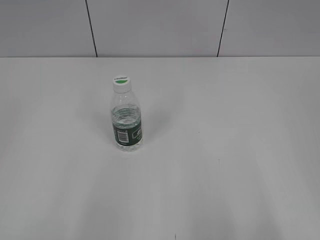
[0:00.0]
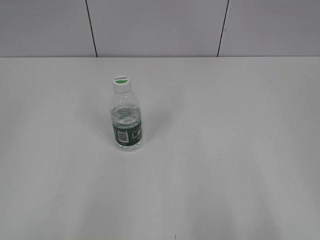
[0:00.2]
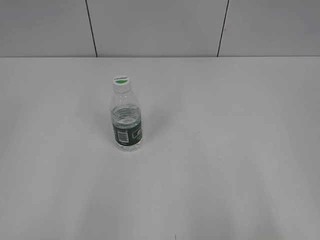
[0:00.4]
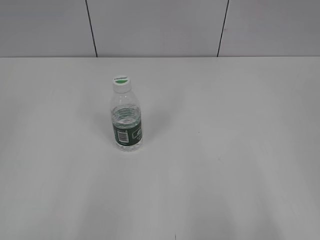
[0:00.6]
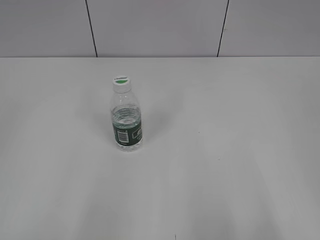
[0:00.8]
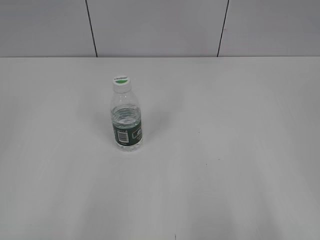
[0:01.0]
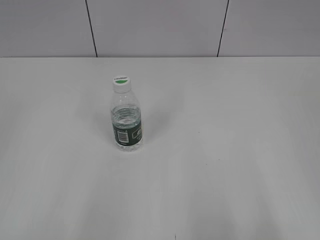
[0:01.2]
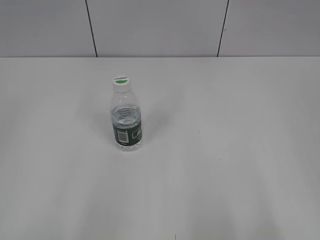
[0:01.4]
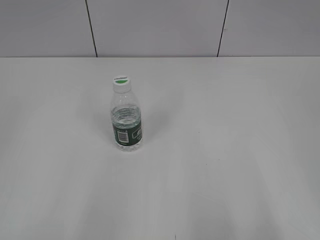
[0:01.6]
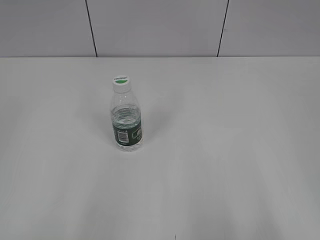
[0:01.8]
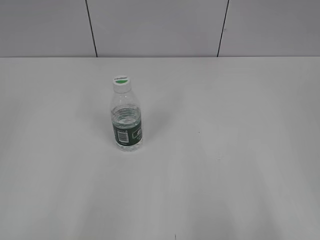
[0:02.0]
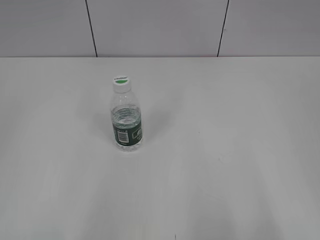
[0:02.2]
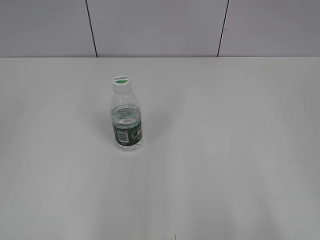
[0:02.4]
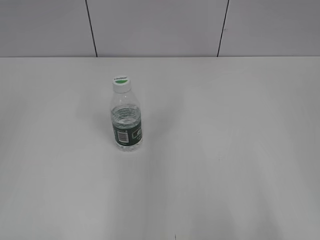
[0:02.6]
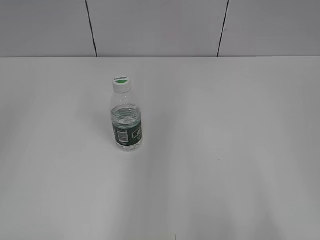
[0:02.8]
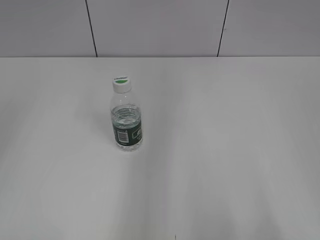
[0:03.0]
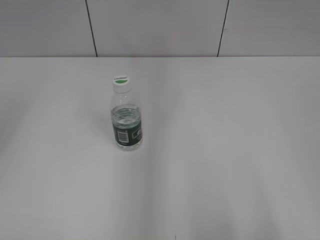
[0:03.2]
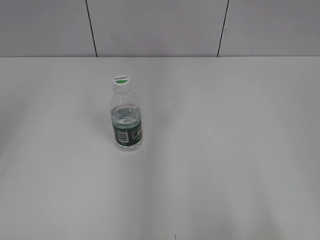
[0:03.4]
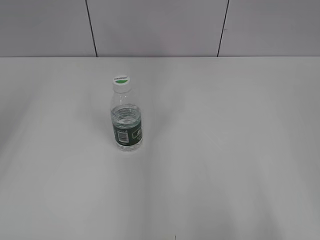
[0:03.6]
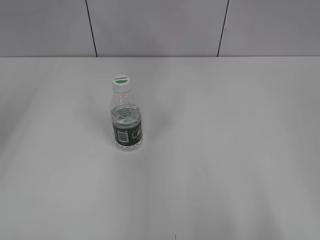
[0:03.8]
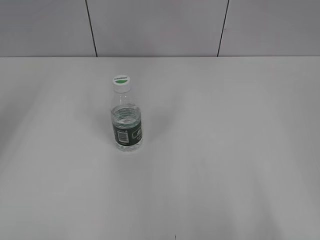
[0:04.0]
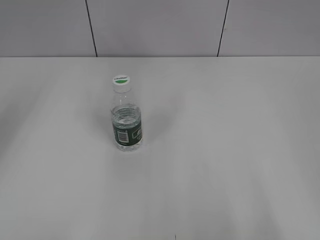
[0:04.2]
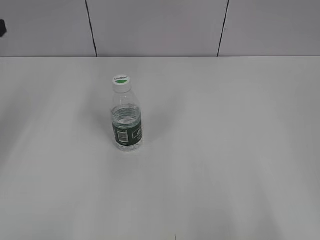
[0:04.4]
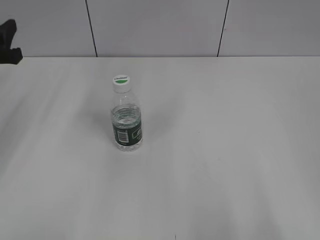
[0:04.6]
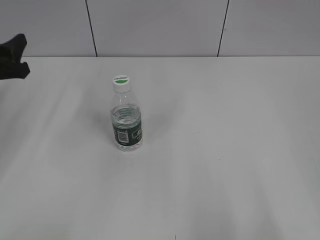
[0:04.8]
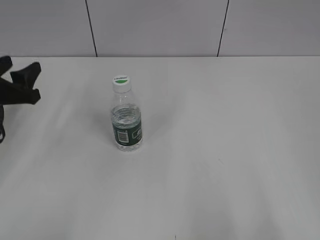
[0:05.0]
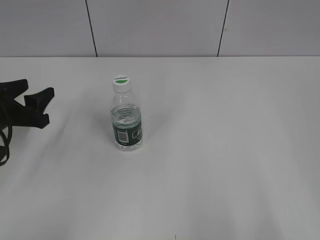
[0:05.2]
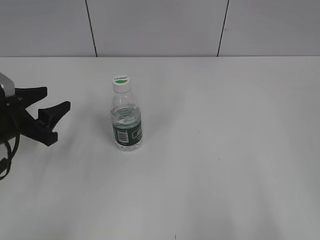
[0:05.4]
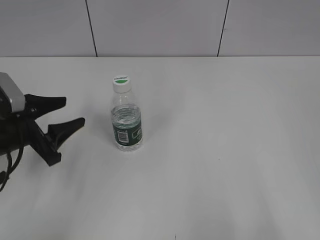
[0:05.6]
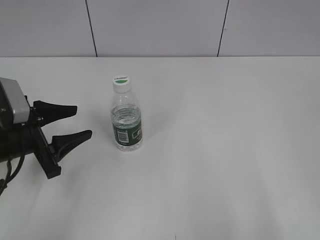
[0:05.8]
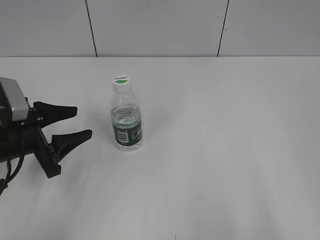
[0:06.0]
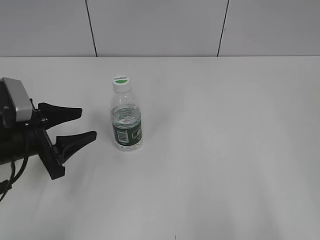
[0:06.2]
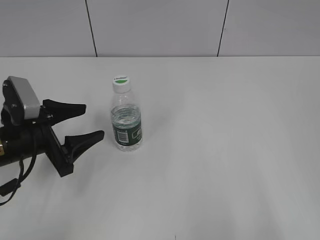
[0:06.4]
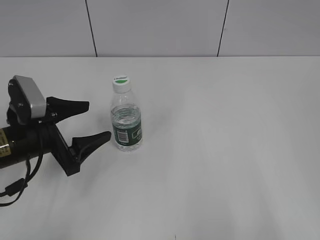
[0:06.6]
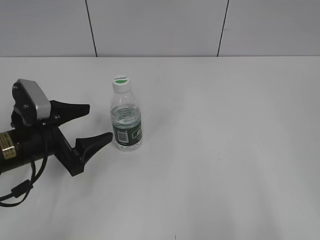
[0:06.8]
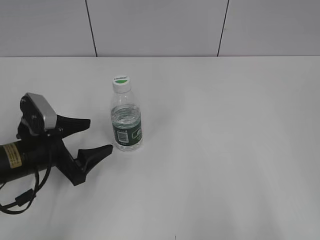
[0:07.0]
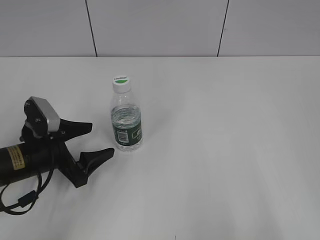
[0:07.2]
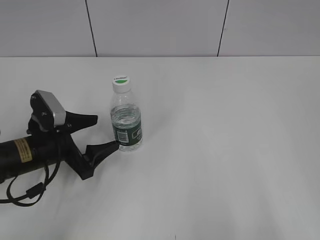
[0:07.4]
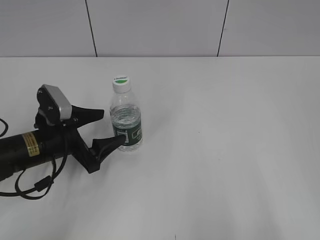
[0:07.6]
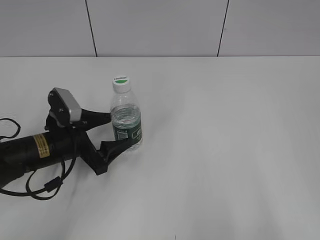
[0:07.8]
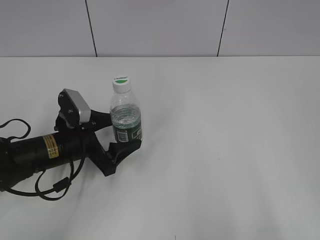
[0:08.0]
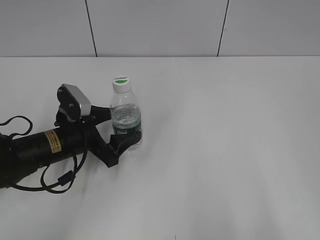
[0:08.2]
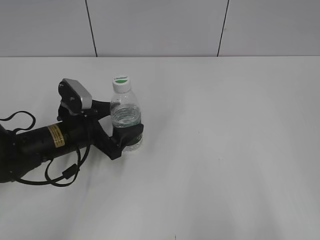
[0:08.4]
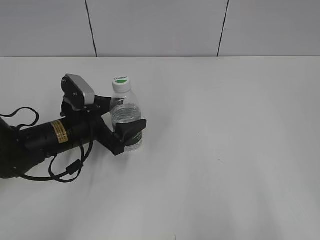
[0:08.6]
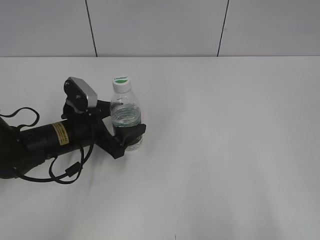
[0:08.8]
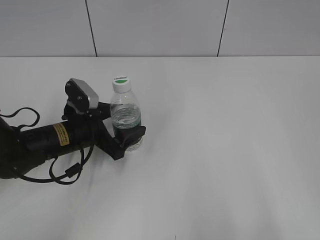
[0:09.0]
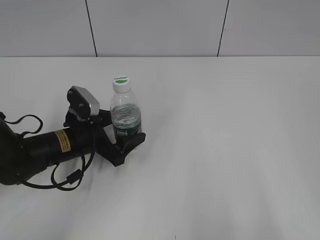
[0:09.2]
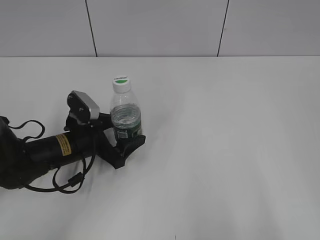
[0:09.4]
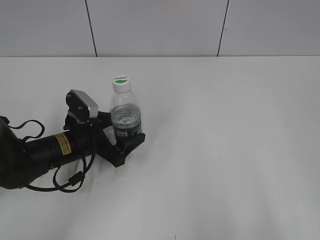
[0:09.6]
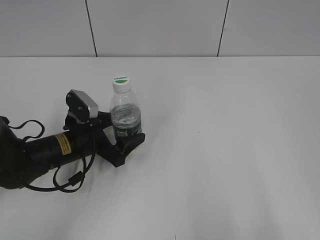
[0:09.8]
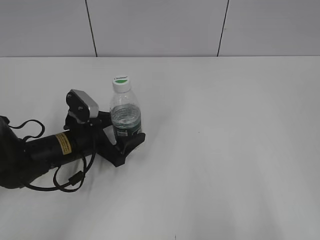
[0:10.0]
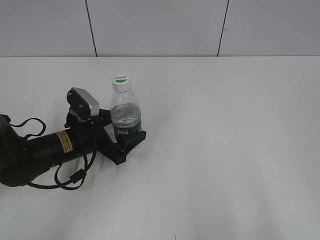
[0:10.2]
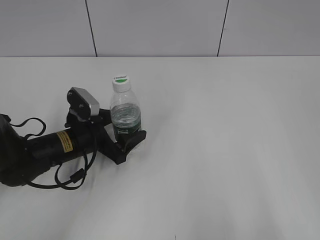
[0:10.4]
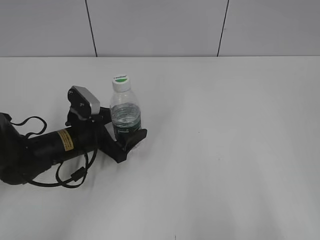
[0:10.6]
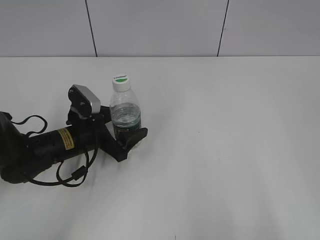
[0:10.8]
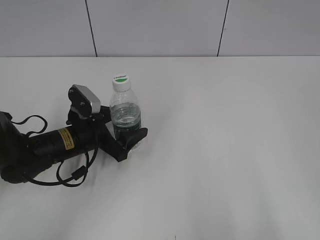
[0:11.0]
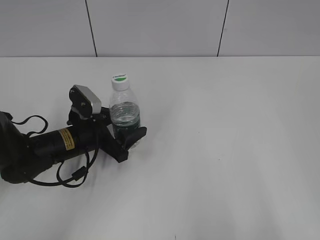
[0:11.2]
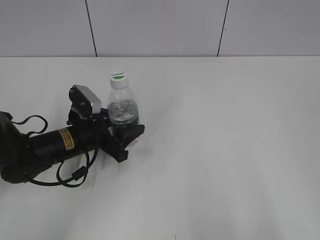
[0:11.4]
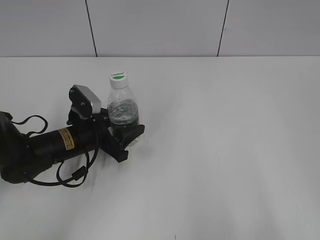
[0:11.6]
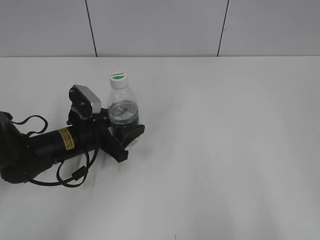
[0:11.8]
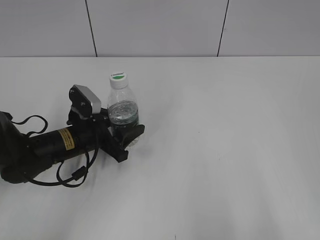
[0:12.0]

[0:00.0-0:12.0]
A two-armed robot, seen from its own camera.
Step, 0:00.0 to 0:11.6: Grasp the bottle and move it to the center of the table with the left gripper.
0:01.6 to 0:03.0: The left gripper shifts roughly 15 cm upward and forward.
0:04.4 to 0:06.0: The left gripper goes roughly 15 cm downward, to the right and backward.
0:06.0 to 0:07.6: The left gripper shifts by about 5 cm, and opens.
0:07.6 to 0:10.4: The grippers make only small movements.
0:10.4 to 0:12.0: The left gripper closes.

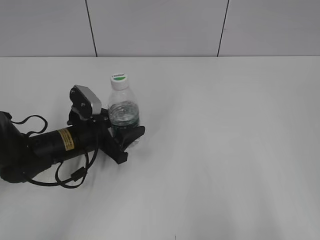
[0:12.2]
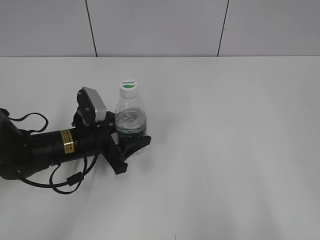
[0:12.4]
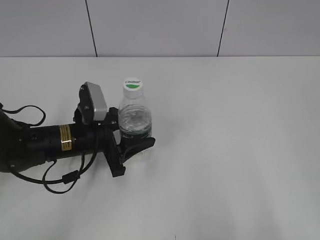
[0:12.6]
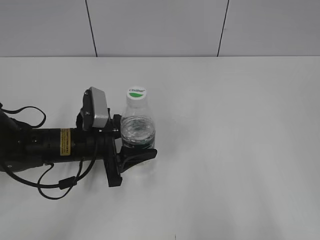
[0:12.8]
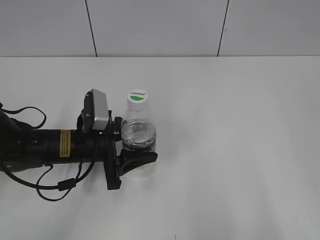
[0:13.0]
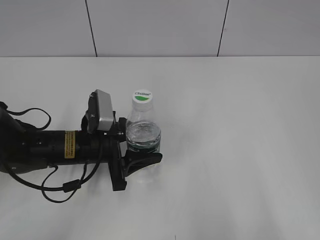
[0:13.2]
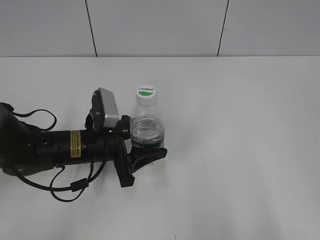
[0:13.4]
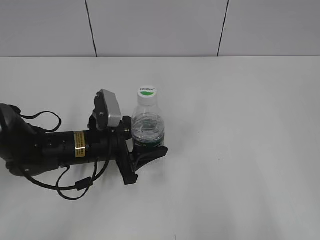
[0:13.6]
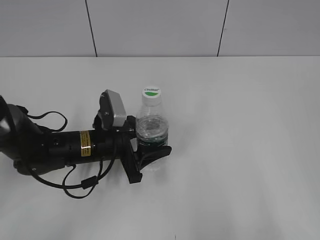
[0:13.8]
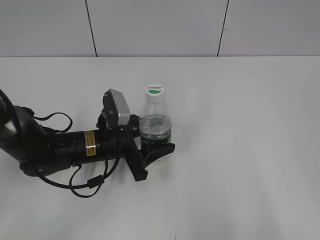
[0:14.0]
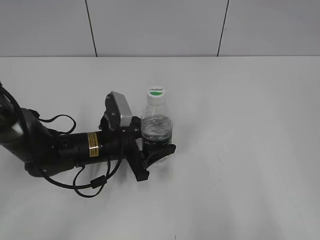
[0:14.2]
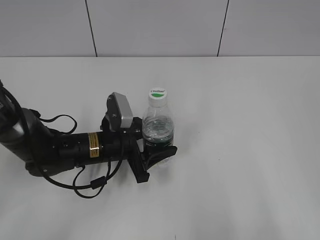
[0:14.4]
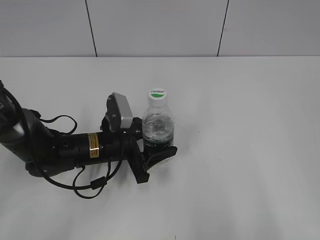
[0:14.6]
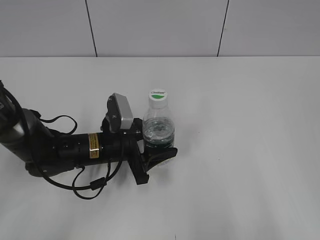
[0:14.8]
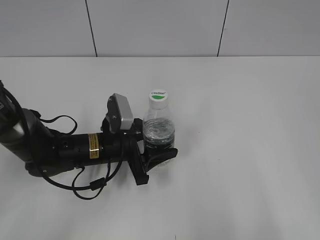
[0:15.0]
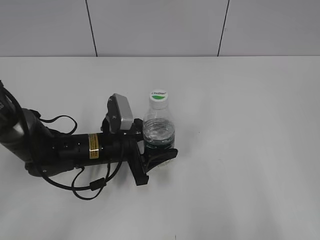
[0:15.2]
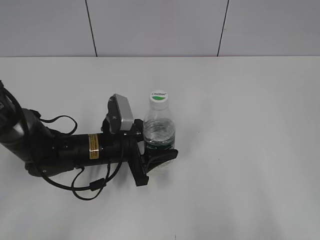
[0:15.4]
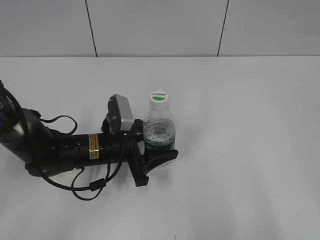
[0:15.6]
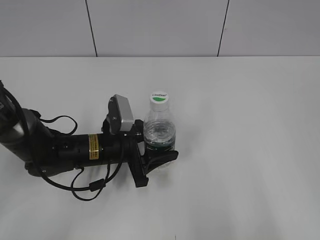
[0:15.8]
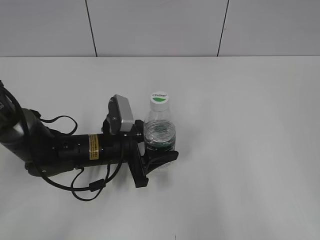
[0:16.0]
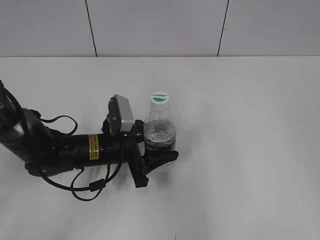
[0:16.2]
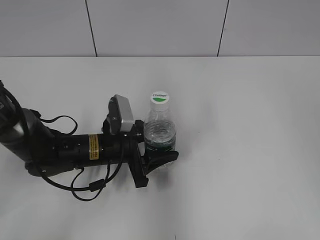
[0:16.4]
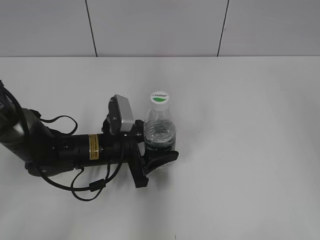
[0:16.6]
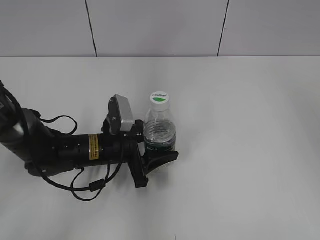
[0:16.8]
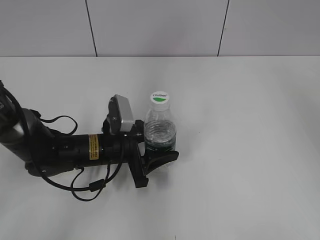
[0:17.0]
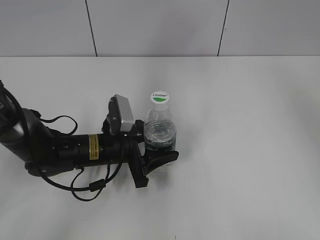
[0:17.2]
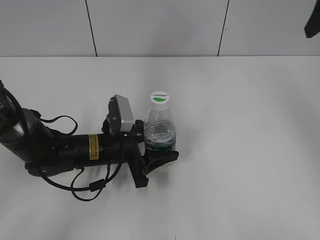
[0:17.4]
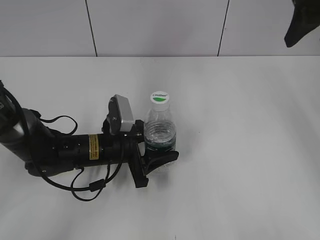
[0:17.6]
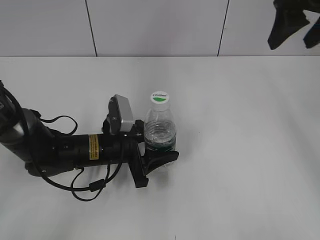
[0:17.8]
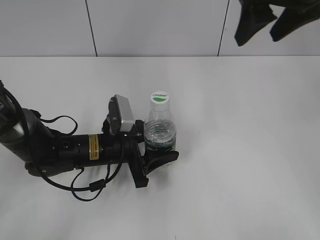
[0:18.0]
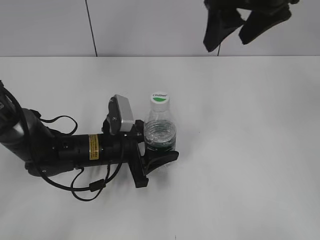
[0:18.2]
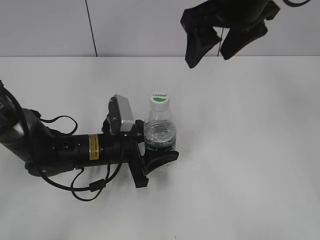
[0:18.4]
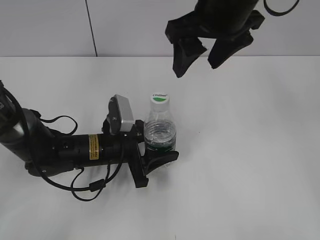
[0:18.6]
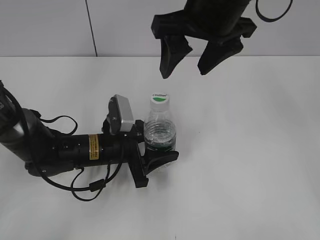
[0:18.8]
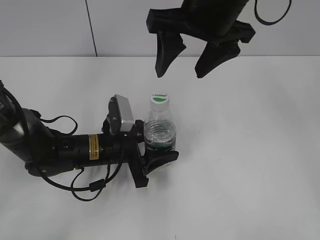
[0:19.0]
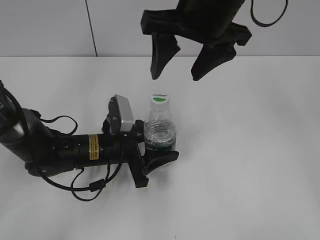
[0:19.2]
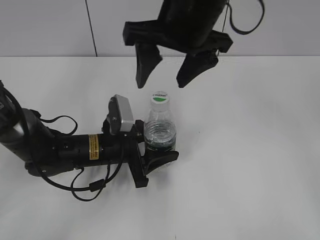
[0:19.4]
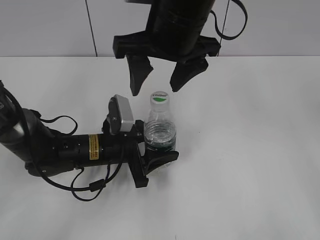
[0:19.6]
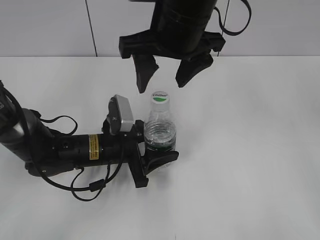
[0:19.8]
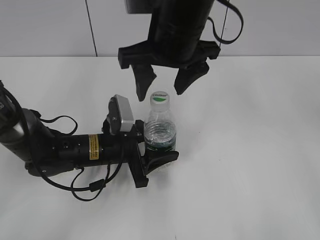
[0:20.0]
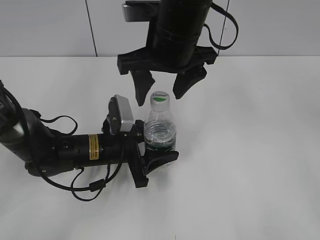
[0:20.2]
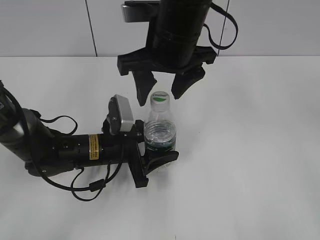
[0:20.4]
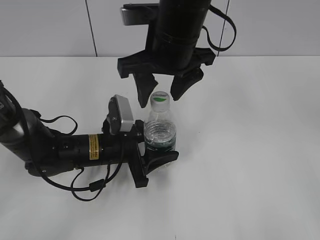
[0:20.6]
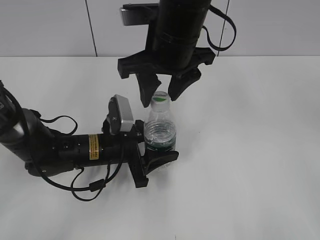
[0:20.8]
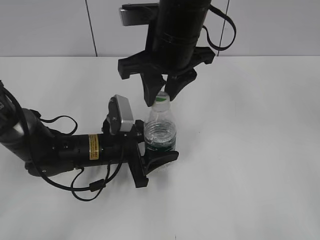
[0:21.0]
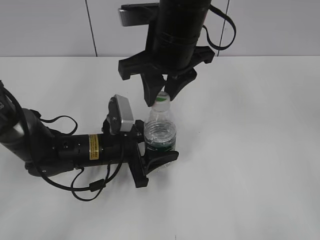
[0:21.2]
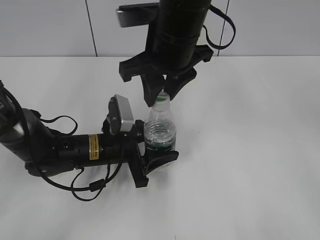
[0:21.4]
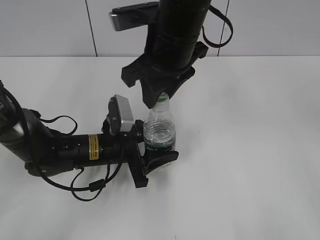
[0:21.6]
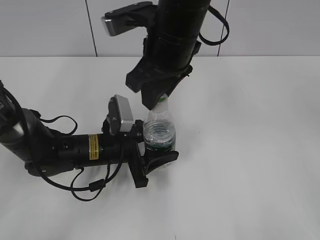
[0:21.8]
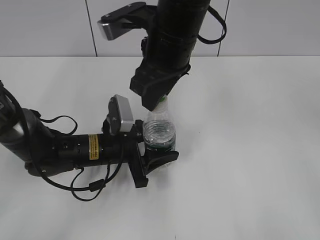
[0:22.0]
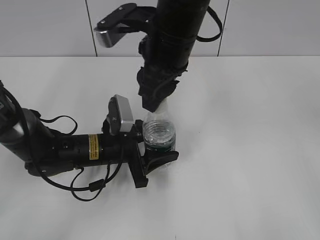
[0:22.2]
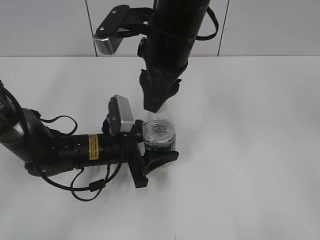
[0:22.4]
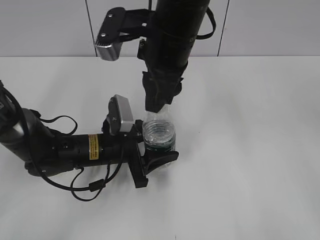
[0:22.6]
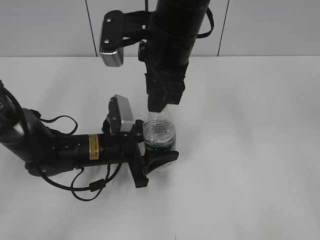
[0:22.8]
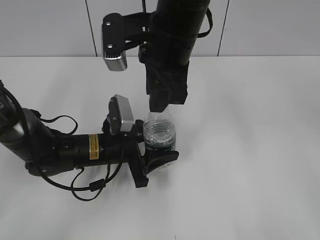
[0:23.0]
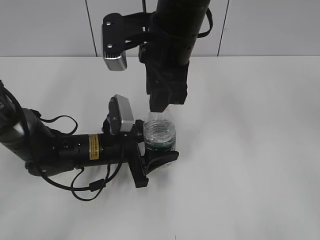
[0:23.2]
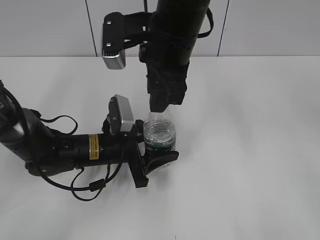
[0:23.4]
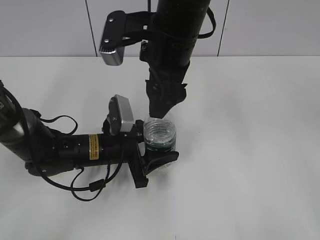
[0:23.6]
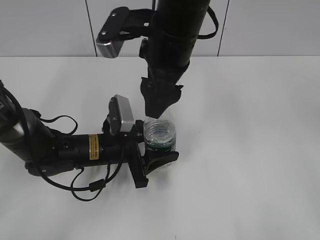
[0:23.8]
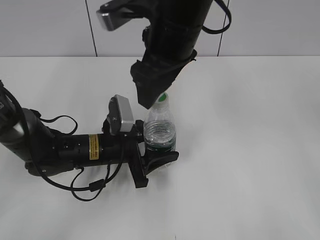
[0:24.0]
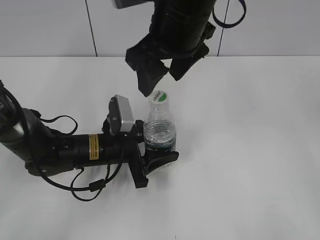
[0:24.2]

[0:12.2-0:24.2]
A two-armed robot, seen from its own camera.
Step, 0:12.2 to 0:14.8: Lift the bottle and move it to the center of the table with the left gripper.
0:13.8 to 0:15.2: There are only small adjustments of the grippers.
0:15.2 to 0:16.6: The right gripper goes about 20 cm forward and upward.
0:16.6 to 0:18.2: The right gripper shifts some 25 cm to the left and forward.
0:18.2 to 0:19.8: The right gripper travels to the left and downward by approximately 10 cm.
0:19.8 to 0:21.2: The right gripper closes.
0:22.6 to 0:24.2: The right gripper opens its fingers.
